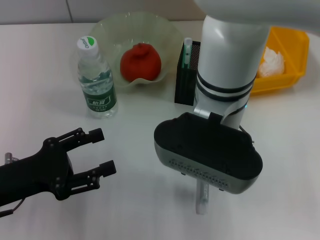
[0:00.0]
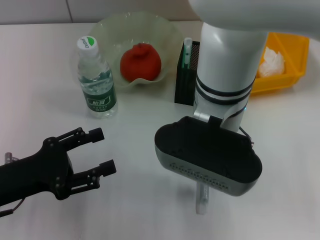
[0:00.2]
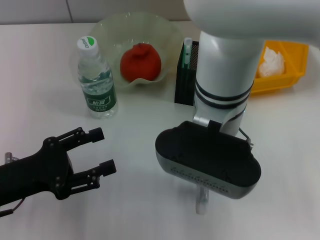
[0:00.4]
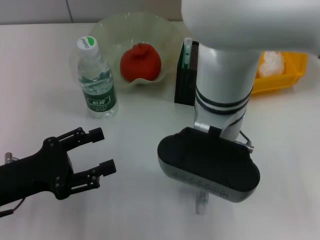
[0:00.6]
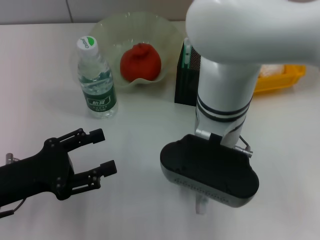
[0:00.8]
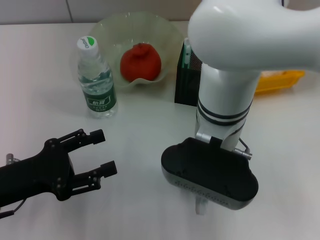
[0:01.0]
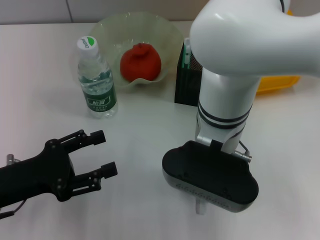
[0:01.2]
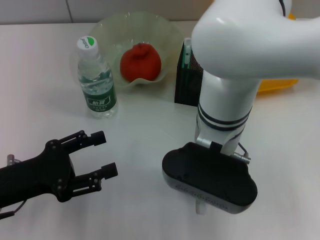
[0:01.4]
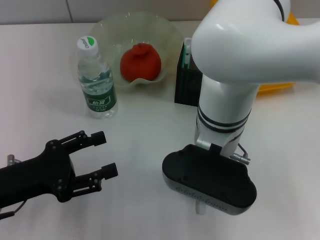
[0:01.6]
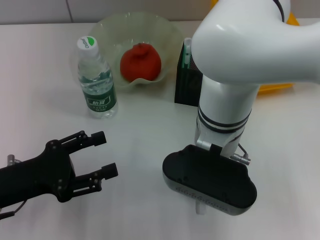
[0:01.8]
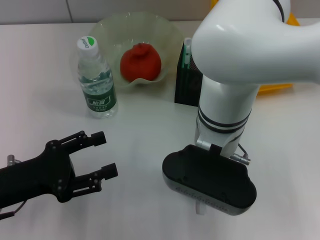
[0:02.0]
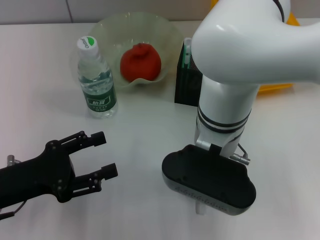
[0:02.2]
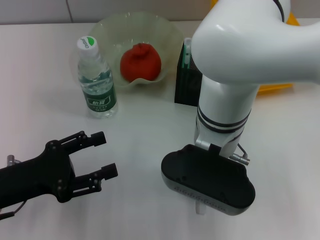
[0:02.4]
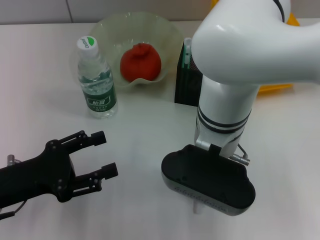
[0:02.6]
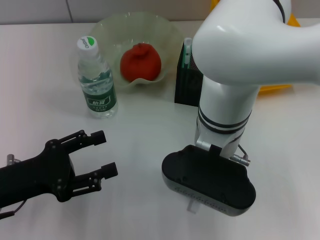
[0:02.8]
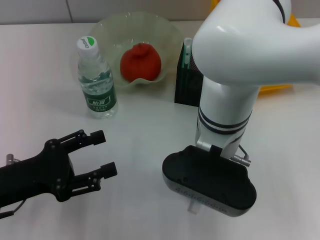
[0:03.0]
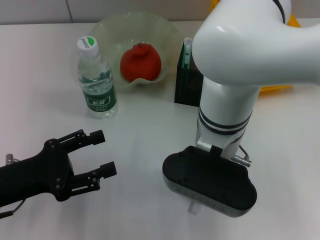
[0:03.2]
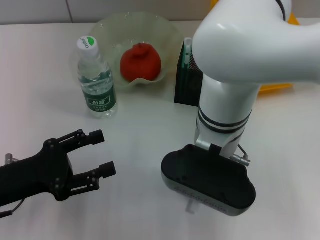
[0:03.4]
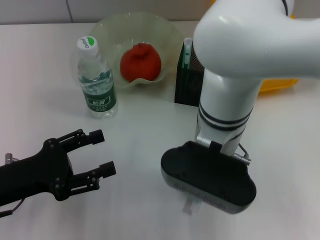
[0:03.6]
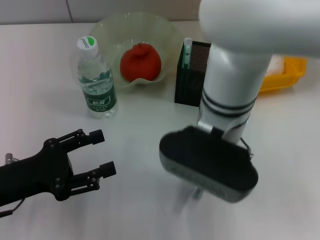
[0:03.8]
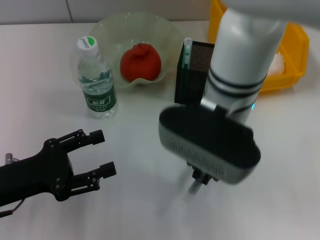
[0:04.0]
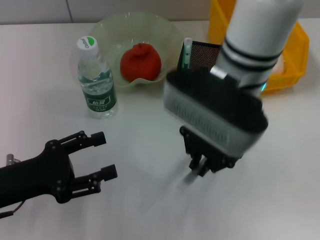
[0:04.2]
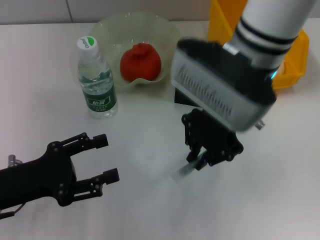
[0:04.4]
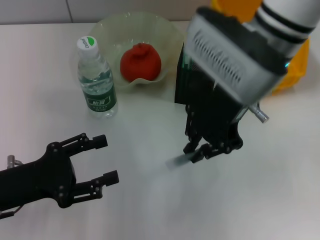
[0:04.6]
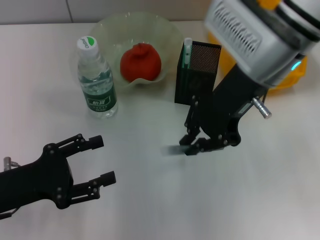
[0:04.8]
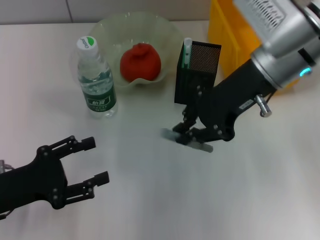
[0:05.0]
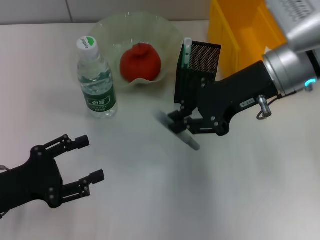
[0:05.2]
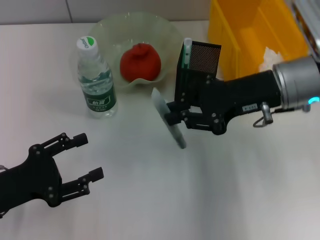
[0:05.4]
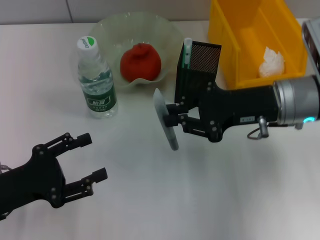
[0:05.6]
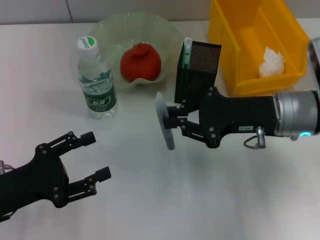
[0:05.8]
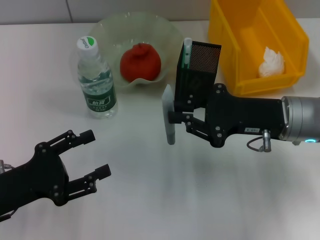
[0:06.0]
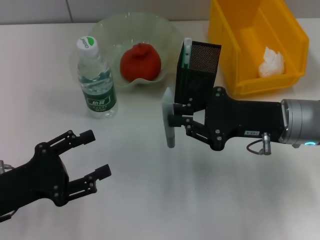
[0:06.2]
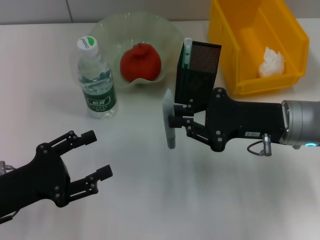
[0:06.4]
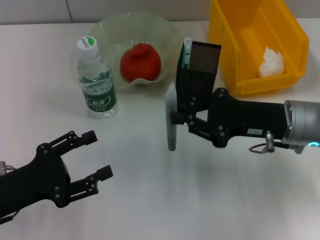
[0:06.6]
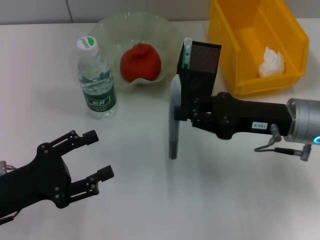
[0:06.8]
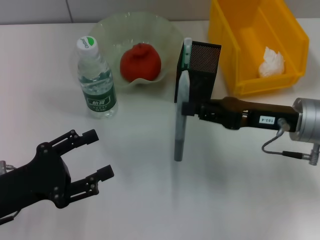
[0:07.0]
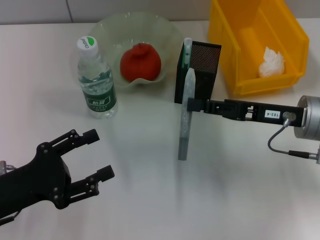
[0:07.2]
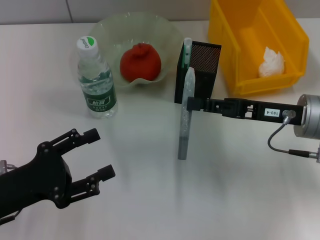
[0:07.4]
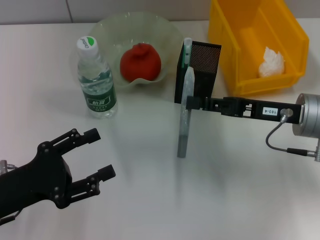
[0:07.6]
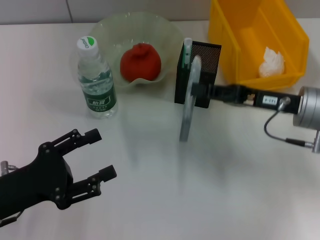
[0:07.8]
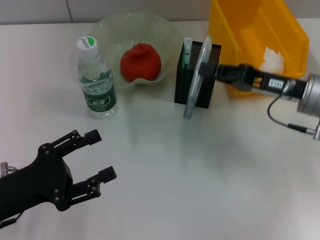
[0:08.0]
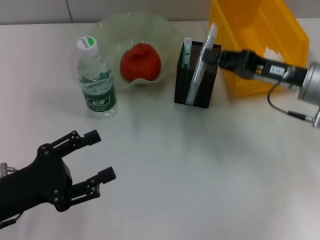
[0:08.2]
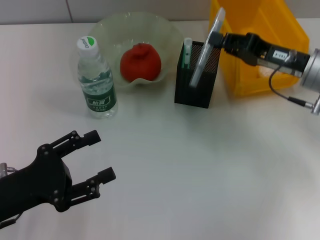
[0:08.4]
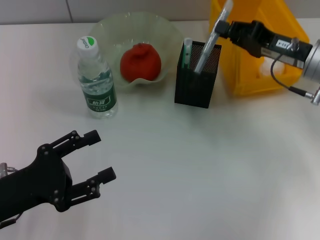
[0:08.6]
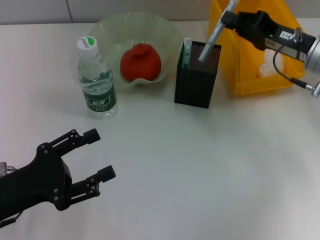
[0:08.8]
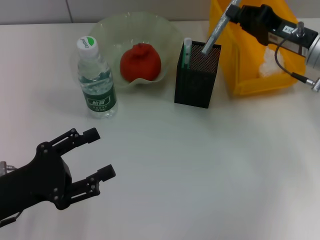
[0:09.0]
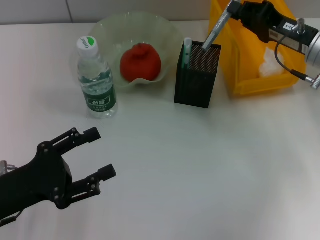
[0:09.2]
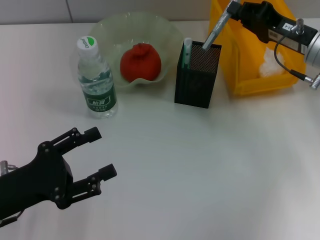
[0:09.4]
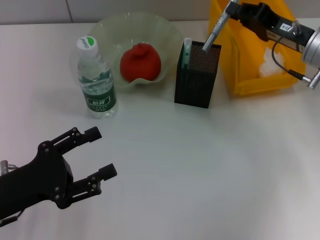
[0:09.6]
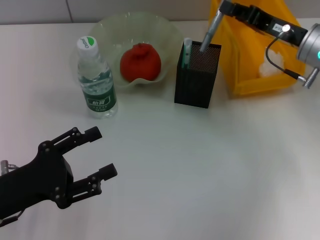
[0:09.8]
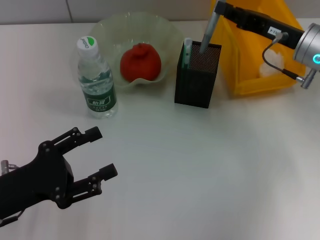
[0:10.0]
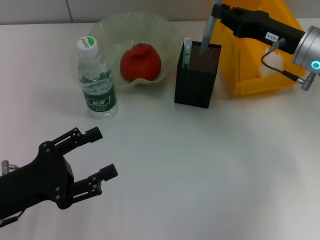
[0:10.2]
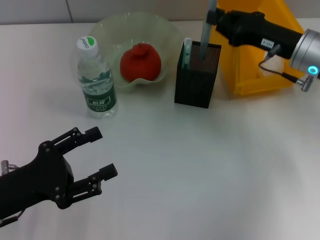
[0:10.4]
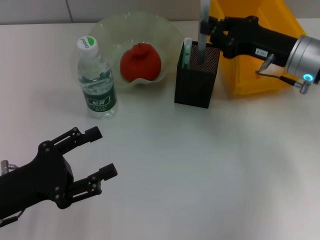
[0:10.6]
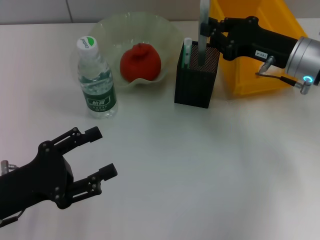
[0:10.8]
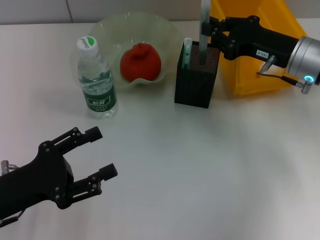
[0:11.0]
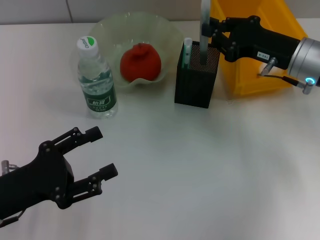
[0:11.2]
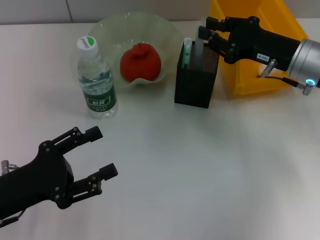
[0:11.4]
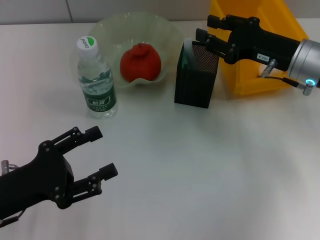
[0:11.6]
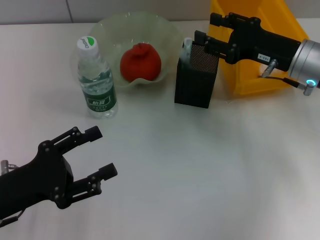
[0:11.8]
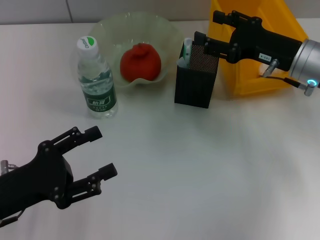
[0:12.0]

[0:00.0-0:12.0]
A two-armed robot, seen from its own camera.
Step, 0:00.0 to 0:03.0: Grab the gray glue with the right hand.
Step, 0:03.4 to 0:11.8: Place the gray glue into the pen holder with the right hand.
0:01.6 to 0:03.0: The right gripper closes its fingers.
0:03.0 to 0:04.4: The right gripper goes roughly 10 cm upward.
0:04.4 to 0:06.0: The right gripper goes roughly 15 cm to the right and downward.
0:07.6 to 0:09.0: The right gripper travels forward by roughly 10 cm.
0:10.4 to 0:12.0: The right gripper opens its fingers.

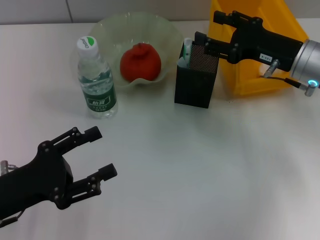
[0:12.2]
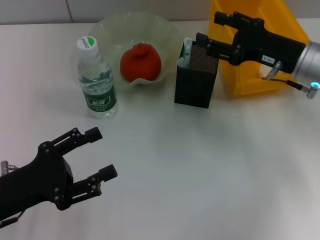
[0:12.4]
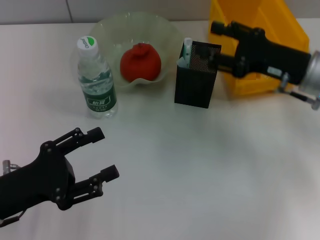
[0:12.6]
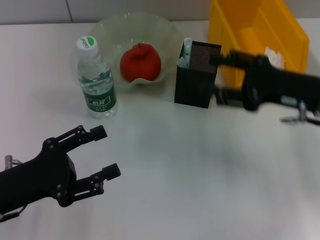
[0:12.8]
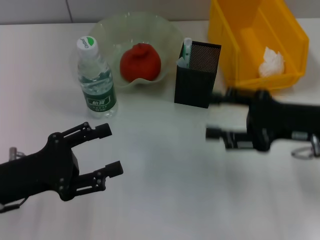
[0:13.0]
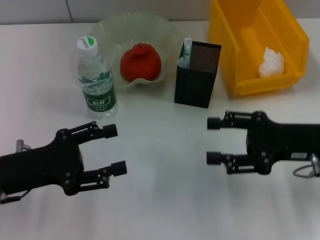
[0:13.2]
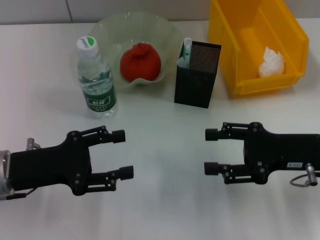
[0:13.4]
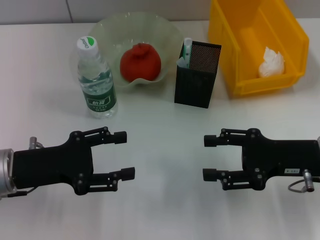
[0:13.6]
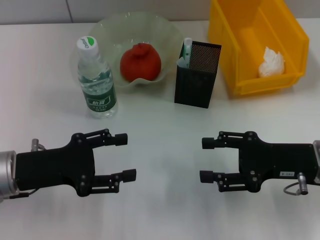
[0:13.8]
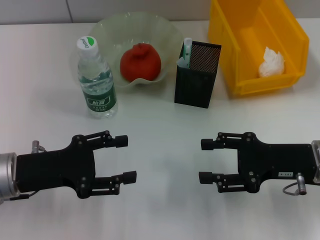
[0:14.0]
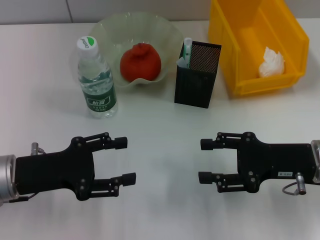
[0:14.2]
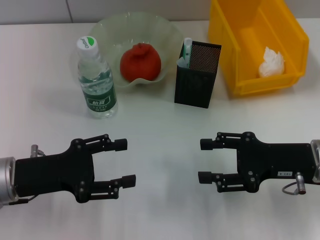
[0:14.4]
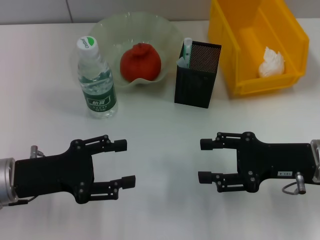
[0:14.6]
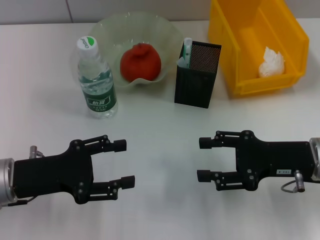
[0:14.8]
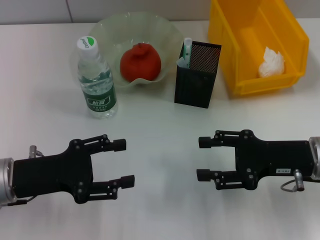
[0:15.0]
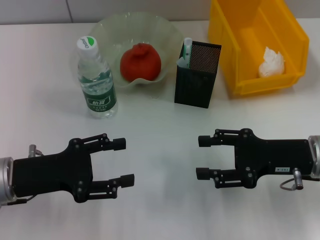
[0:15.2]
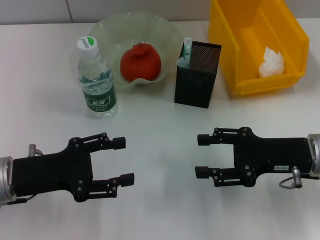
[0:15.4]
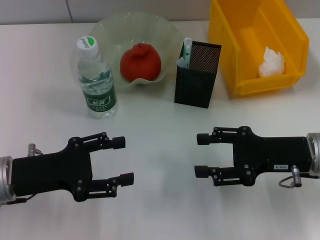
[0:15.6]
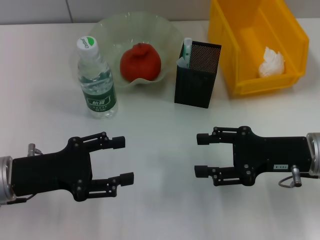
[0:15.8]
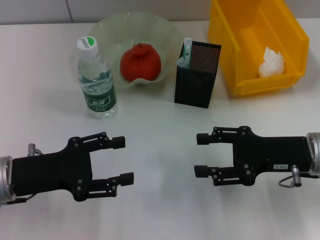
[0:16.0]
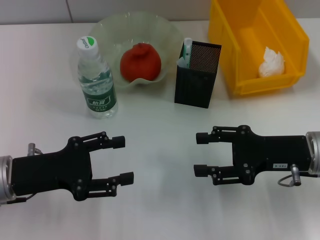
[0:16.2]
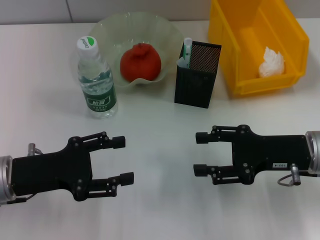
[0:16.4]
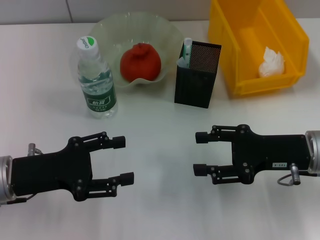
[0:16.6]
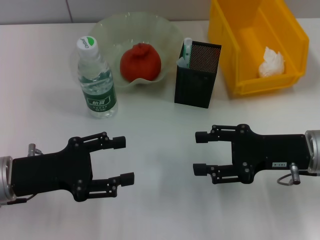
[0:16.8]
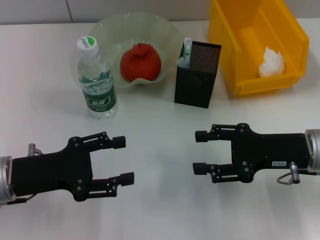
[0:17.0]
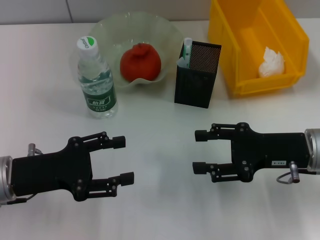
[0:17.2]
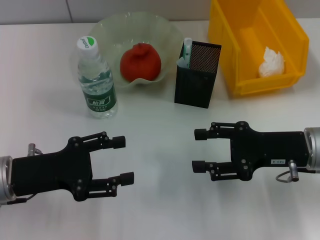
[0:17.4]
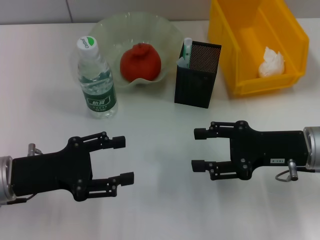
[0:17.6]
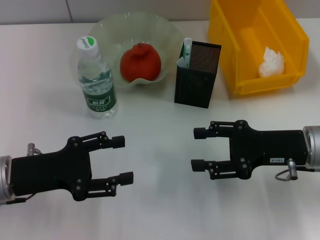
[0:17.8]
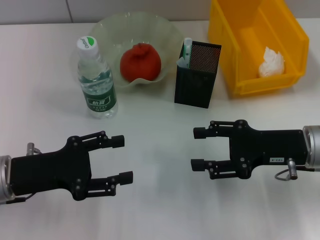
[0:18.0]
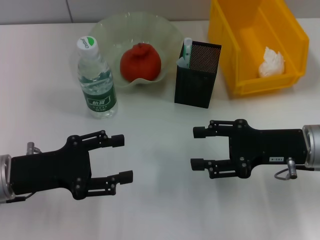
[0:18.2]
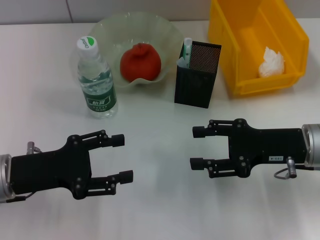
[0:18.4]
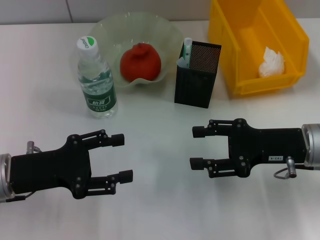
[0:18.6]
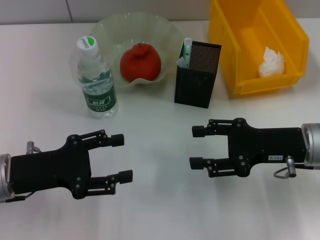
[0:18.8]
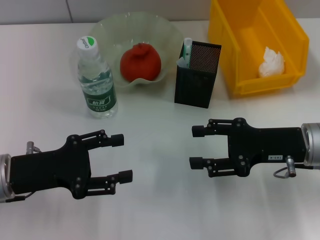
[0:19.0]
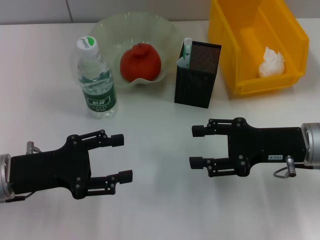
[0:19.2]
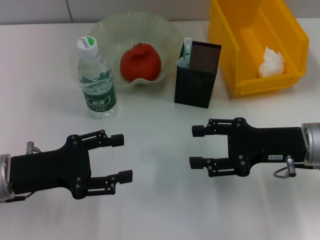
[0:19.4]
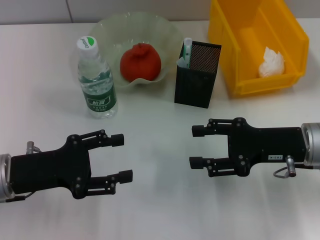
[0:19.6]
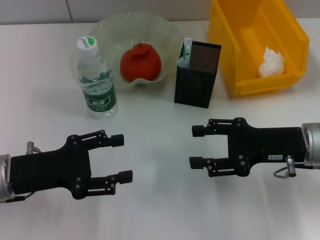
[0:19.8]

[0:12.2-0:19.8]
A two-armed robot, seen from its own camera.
0:12.2 to 0:13.8: The left gripper goes approximately 5 cm forward; the right gripper shifts some 10 cm backward.
0:13.8 to 0:15.2: Both grippers stay about where they are.
0:15.2 to 0:16.8: The two grippers keep their place.
0:16.8 to 0:19.8: The two grippers keep their place.

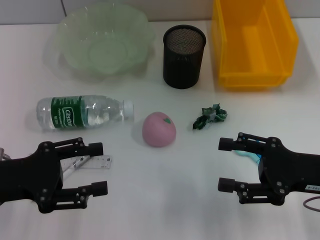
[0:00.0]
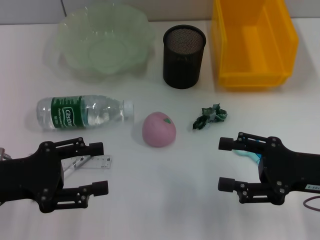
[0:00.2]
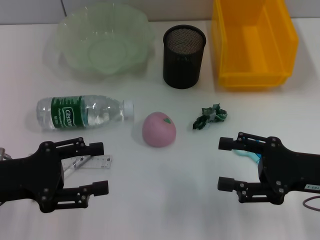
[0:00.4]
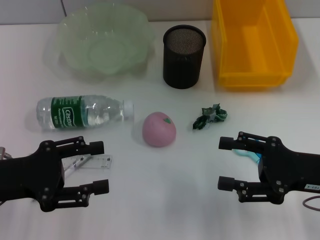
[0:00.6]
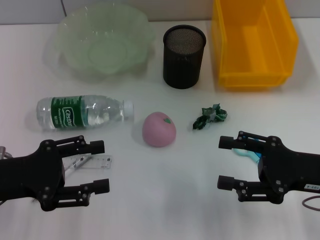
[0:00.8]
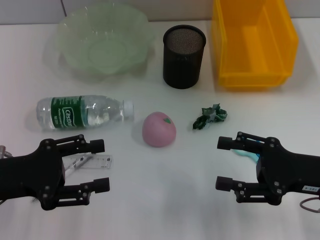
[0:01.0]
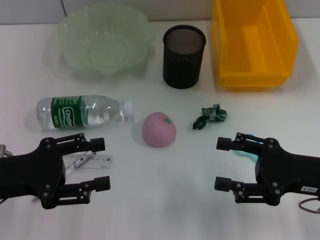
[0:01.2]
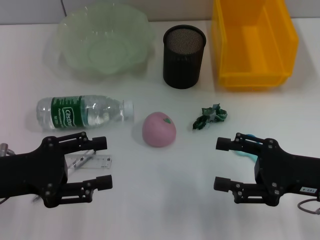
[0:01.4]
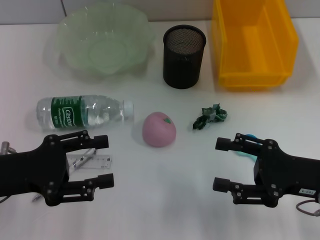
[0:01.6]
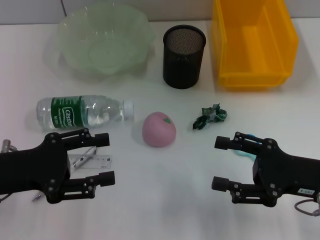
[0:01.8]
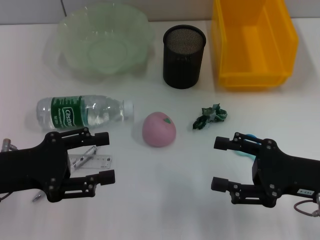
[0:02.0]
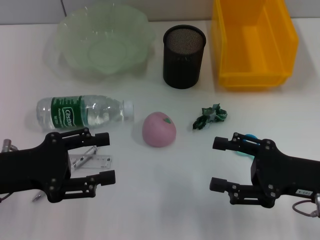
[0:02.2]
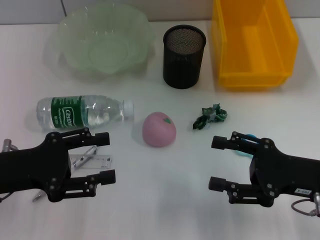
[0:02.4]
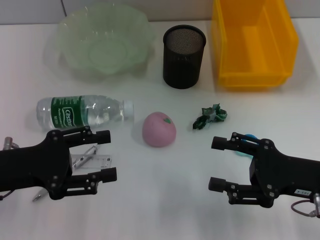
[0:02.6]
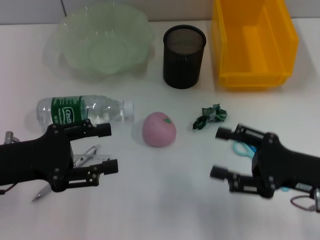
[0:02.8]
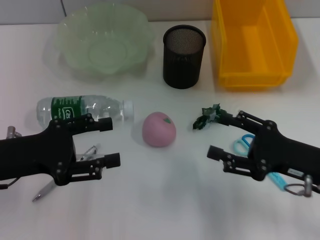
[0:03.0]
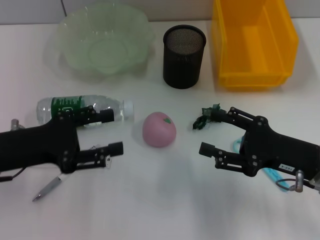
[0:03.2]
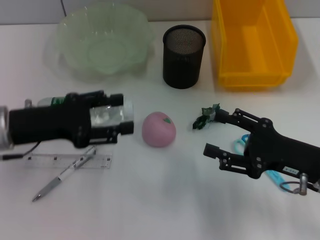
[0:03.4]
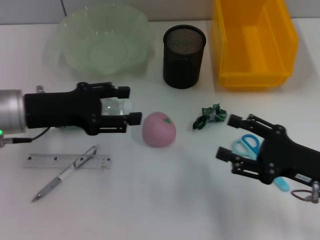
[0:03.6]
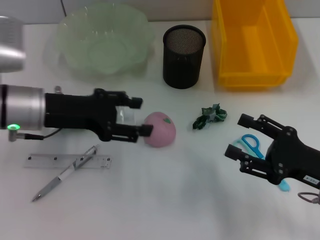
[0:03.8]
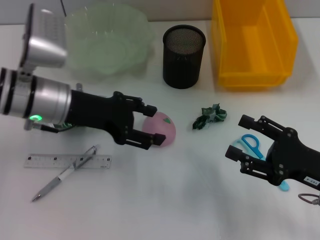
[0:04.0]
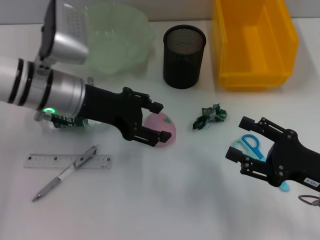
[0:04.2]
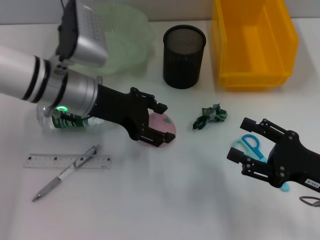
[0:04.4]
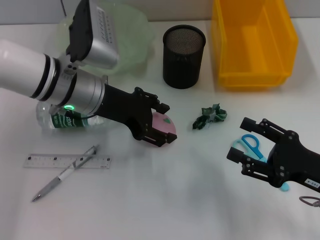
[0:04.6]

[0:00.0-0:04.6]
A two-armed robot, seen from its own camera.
0:00.0 to 0:01.6: Both grippers stay put.
0:01.6 to 0:03.0: The grippers make only small movements.
0:03.0 to 0:04.6: The left gripper travels to the right and forward by approximately 15 cm.
